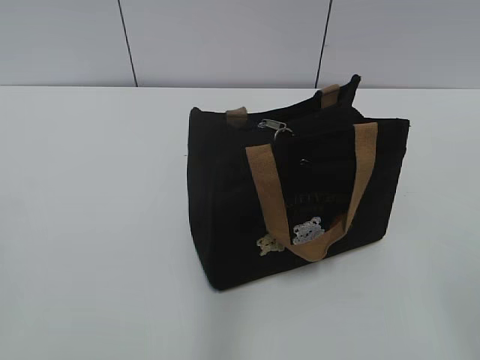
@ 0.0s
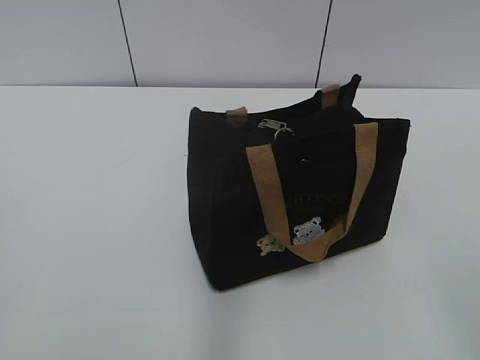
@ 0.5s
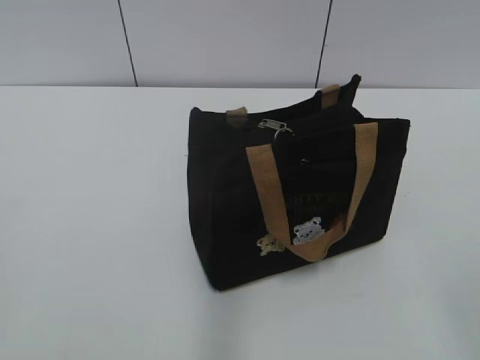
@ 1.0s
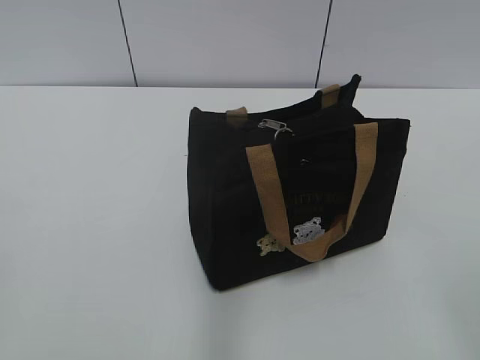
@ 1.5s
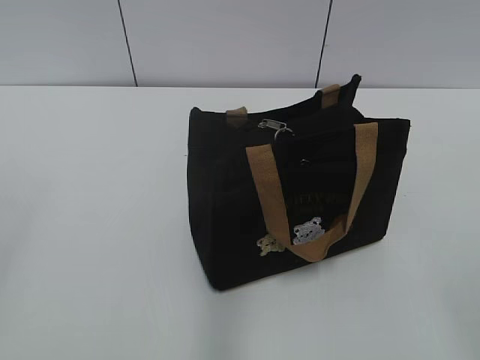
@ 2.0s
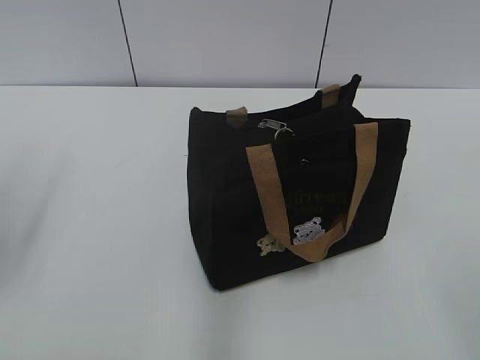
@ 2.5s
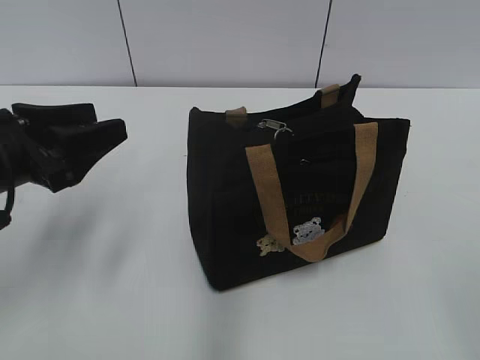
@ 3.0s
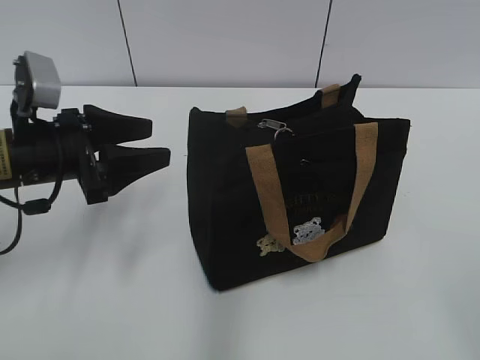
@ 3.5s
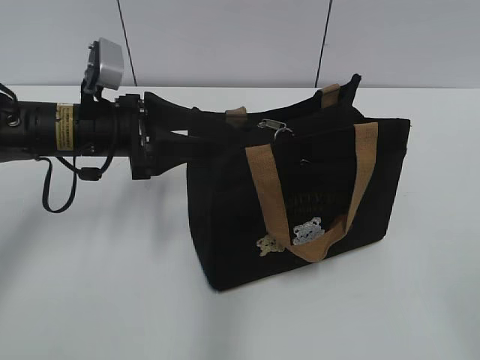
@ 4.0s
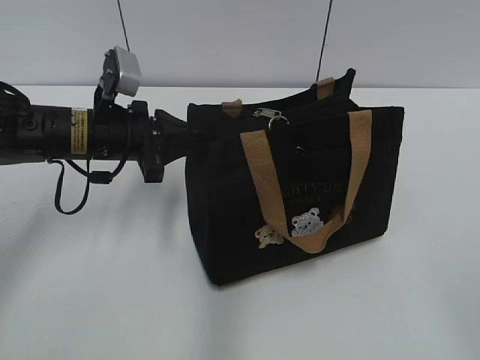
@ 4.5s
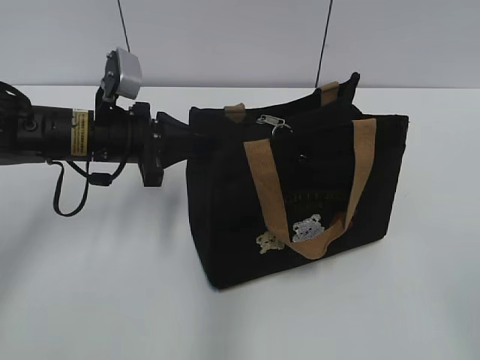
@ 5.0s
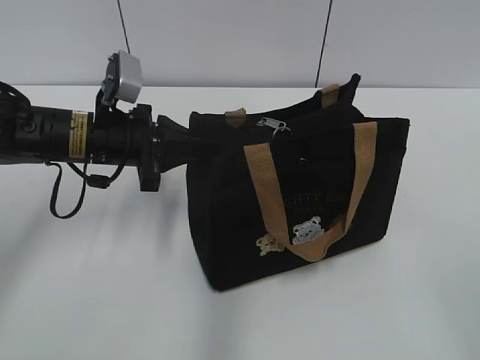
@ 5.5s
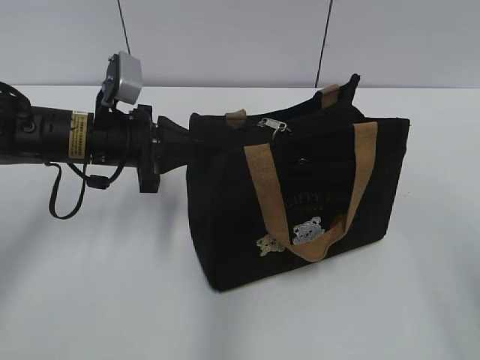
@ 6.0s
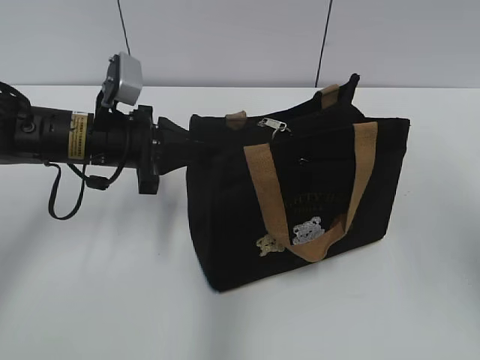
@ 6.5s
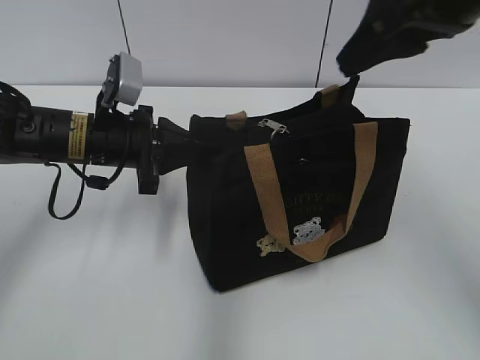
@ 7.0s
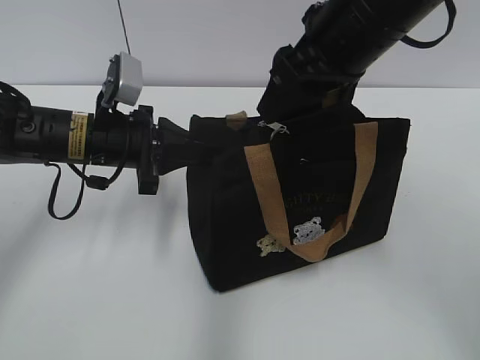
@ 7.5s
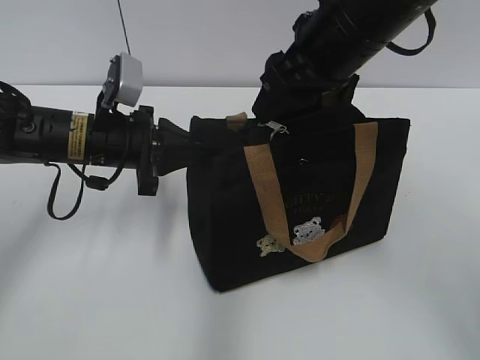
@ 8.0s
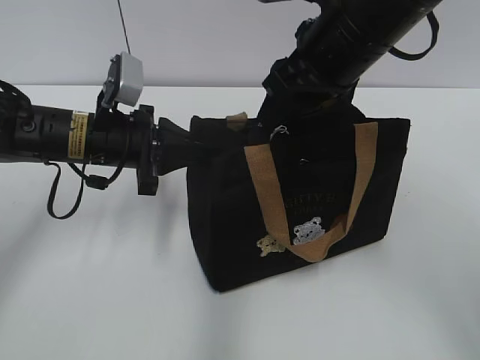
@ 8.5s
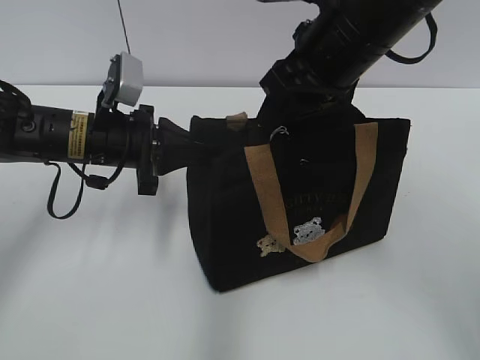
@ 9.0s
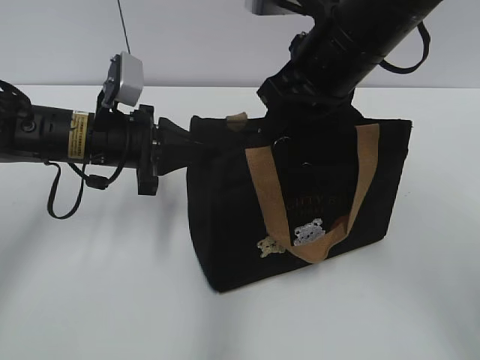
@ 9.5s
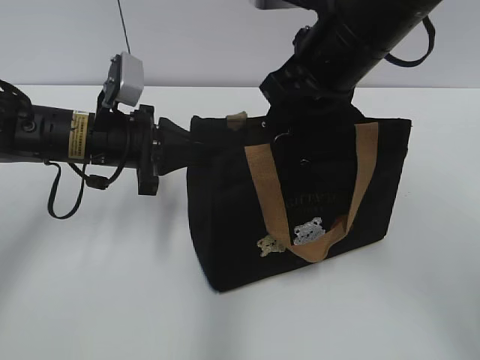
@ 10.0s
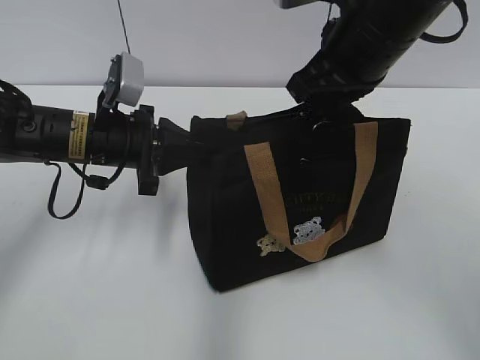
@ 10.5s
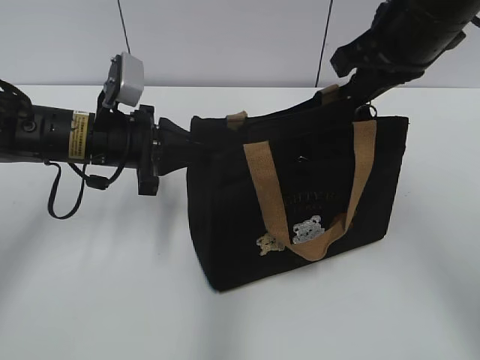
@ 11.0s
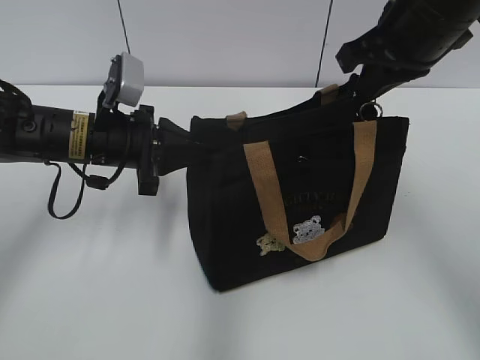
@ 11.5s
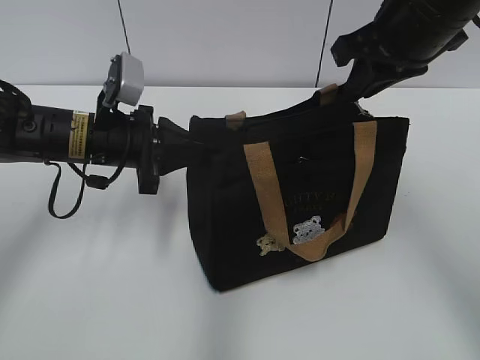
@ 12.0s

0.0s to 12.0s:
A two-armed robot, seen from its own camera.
2.0s to 4.0s: The left gripper heads forward, downward and to the right, covering about 35 cm.
4.0s to 6.0s: The right gripper goes roughly 5 cm forward; the left gripper closes up.
6.0s to 8.0s: The right gripper shifts about 30 cm forward and to the left.
8.0s to 10.0s: The right gripper closes its fingers.
10.0s to 12.0s: The right gripper travels to the right by some 5 cm.

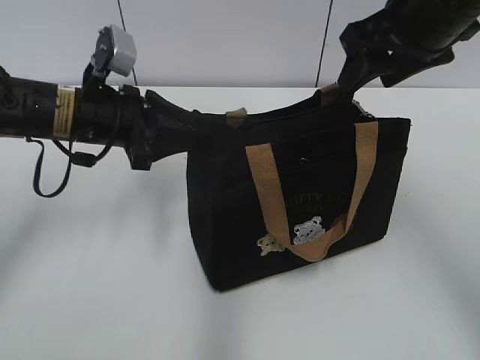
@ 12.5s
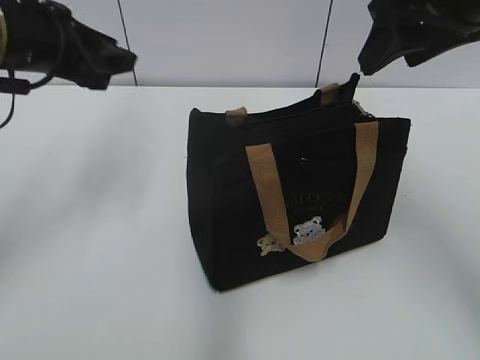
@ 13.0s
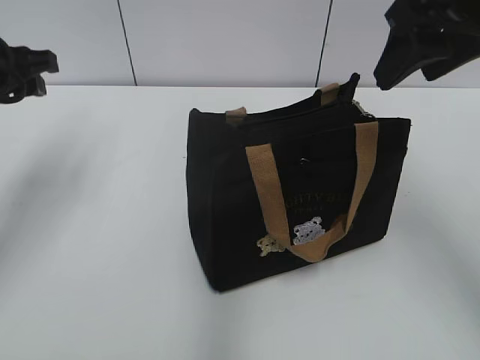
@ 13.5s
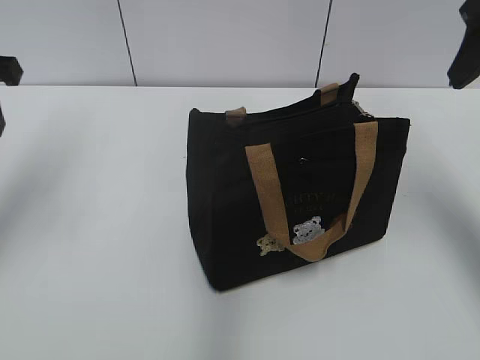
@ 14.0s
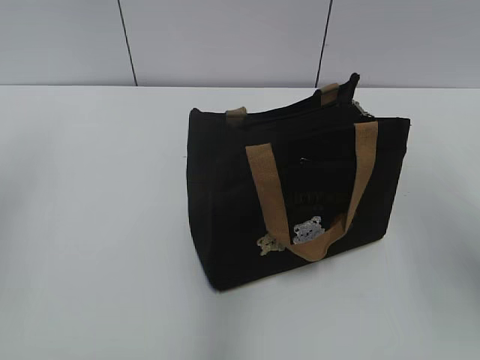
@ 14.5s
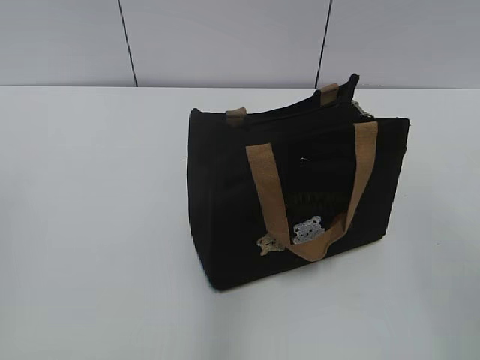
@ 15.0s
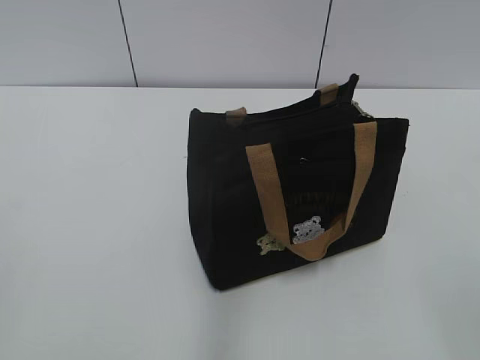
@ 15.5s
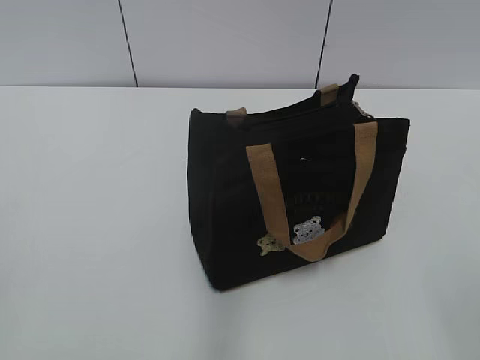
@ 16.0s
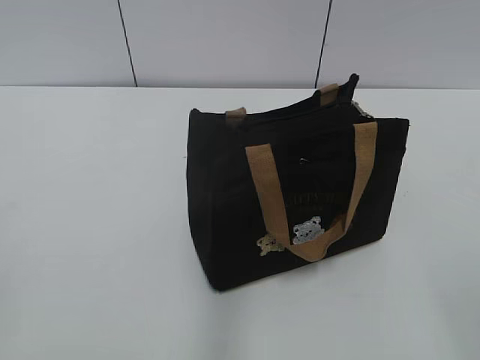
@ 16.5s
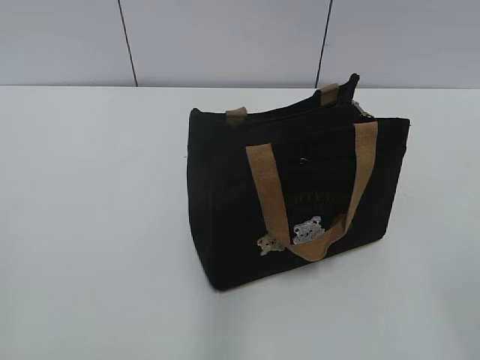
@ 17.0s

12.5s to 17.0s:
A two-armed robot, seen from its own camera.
12.5s to 14.5s: The right gripper moves backward and to the right, approximately 15 cm. Meanwhile the left gripper goes approximately 25 cm upward, to the left and backward.
14.5s to 17.0s: The right gripper is displaced backward by roughly 20 cm.

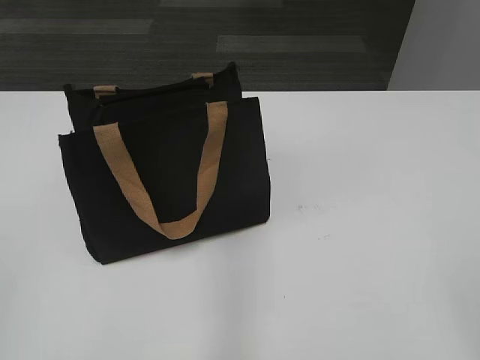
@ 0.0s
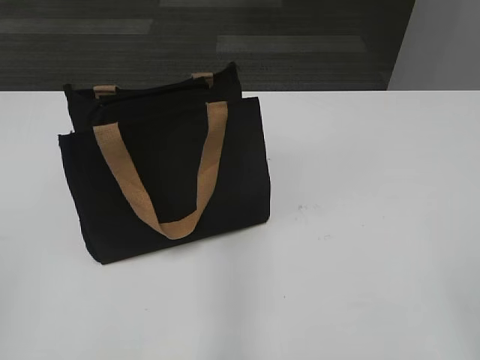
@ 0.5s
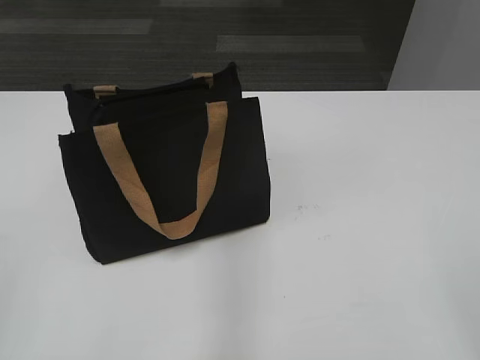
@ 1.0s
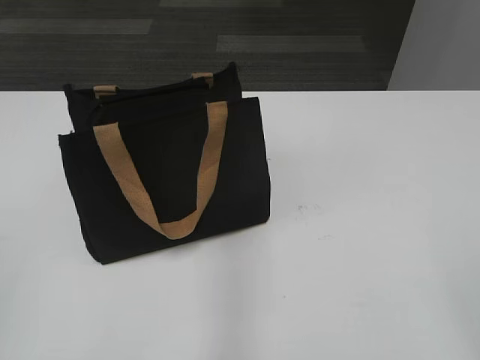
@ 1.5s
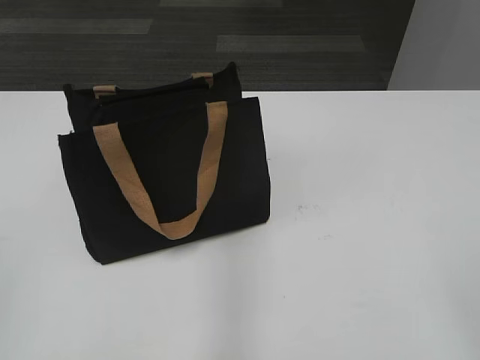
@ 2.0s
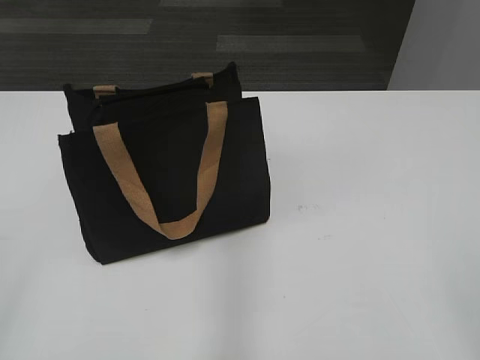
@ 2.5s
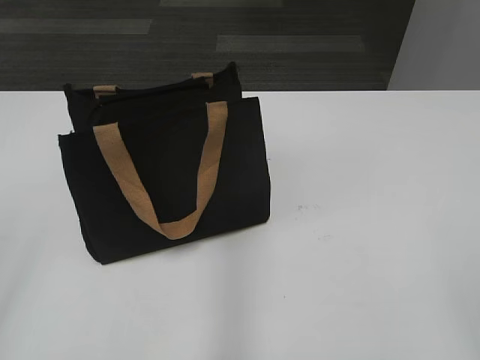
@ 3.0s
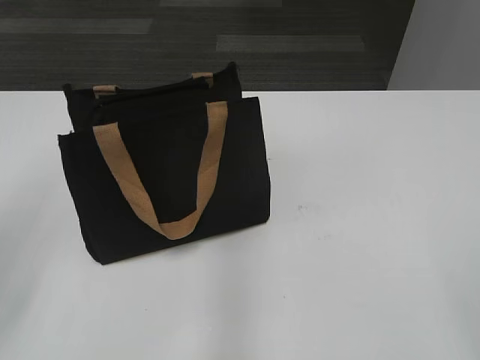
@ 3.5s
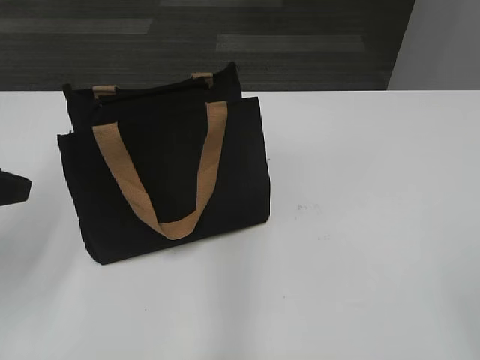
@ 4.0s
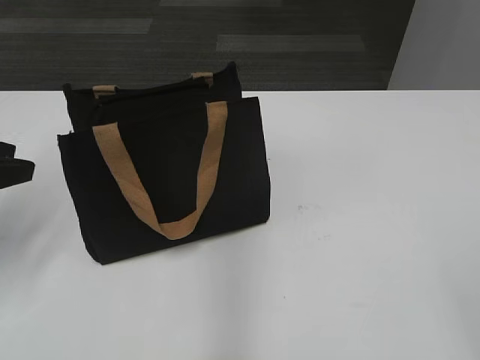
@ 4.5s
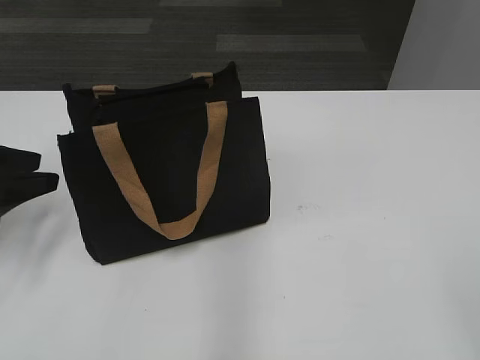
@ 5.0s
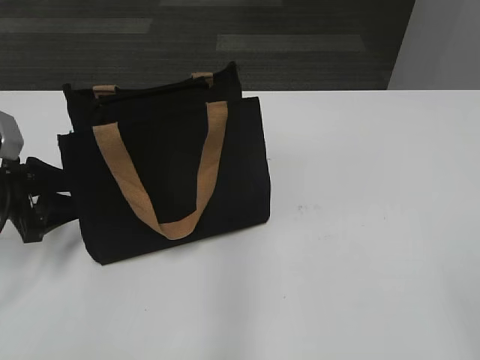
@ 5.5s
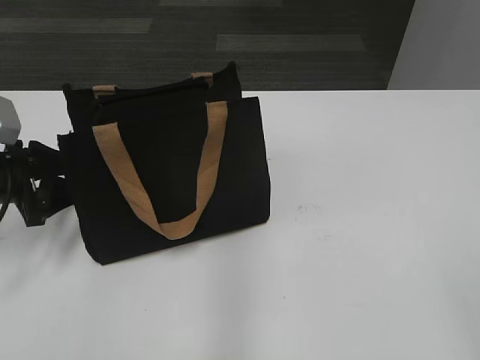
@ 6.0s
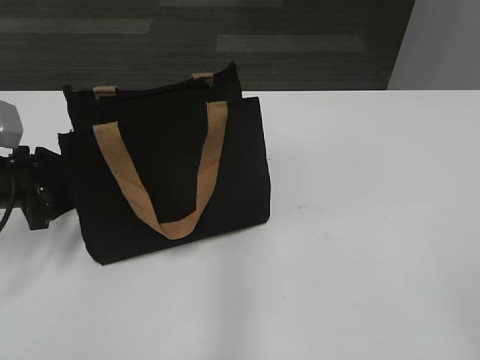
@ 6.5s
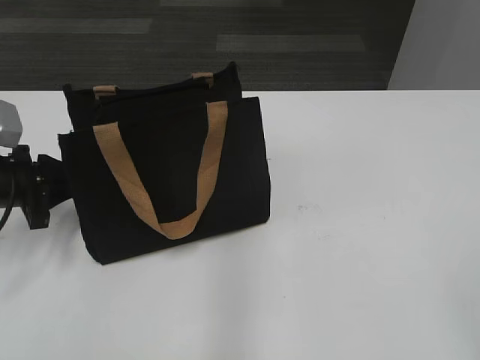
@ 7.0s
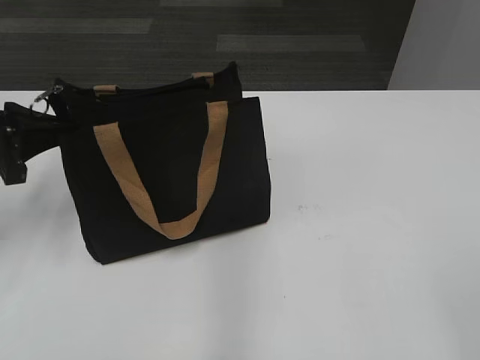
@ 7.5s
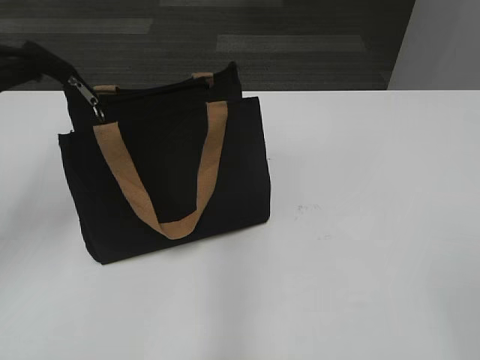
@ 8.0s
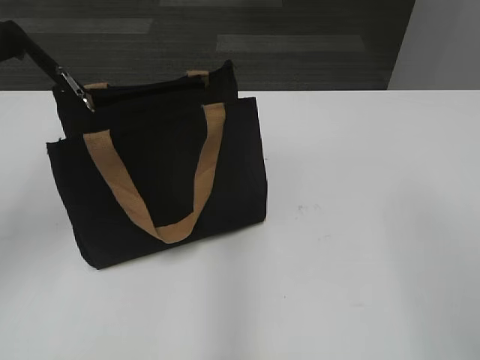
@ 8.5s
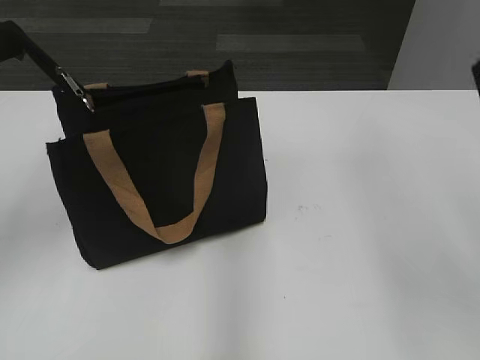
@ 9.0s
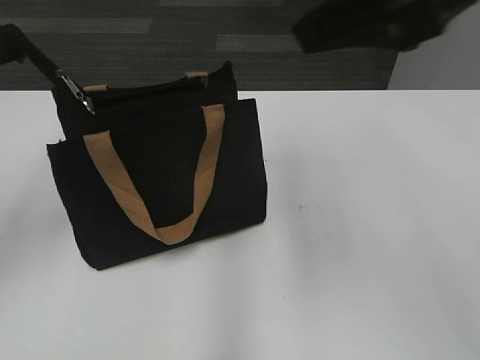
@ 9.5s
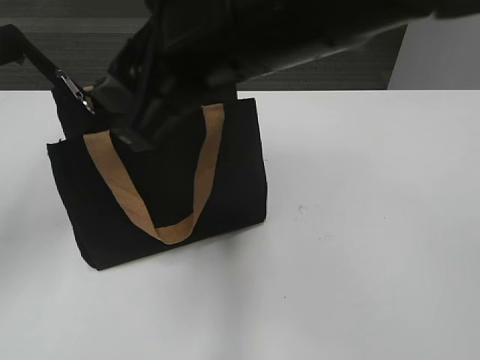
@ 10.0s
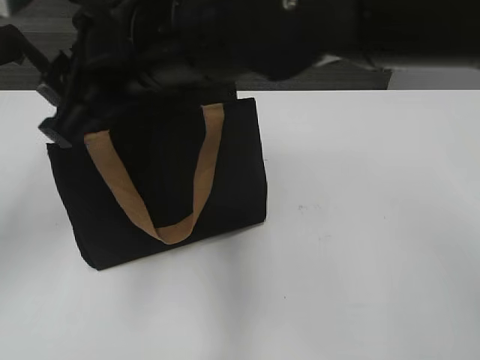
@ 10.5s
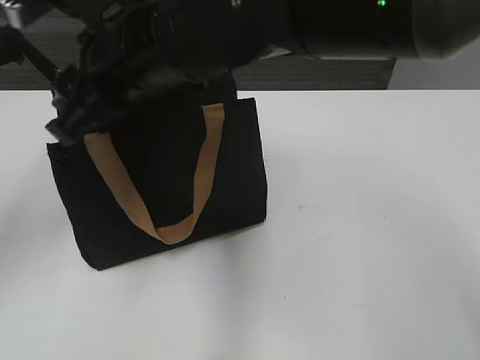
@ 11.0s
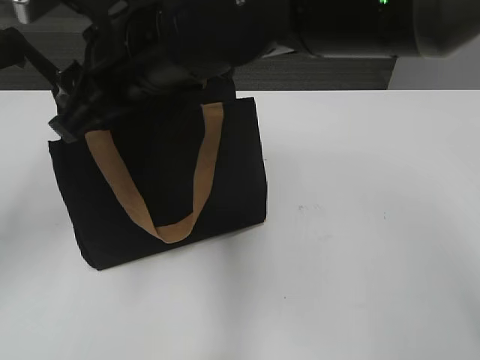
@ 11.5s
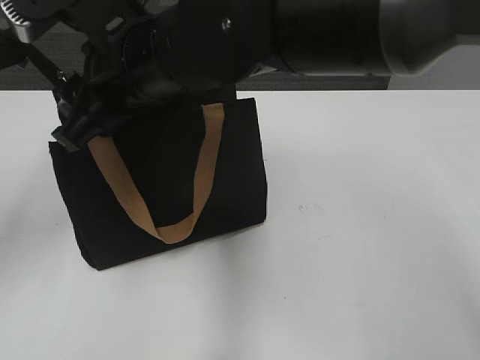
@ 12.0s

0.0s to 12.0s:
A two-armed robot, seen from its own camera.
2.0s to 4.0s: The left gripper heads forward, covering approximately 20 cm, and opens.
4.0s to 6.0s: The left gripper moves downward and forward, about 15 cm.
6.0s to 8.0s: The left gripper heads upward, covering some 15 cm, and closes.
8.0s to 10.0s: The right gripper is displaced to the left and forward by some 35 cm.
10.0s to 12.0s: The right gripper heads to the left, downward and forward, covering approximately 10 cm.
